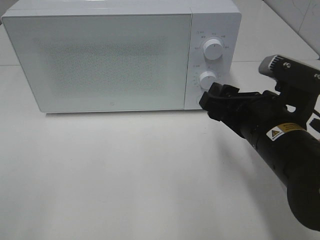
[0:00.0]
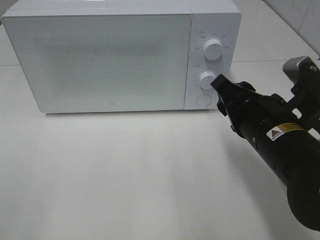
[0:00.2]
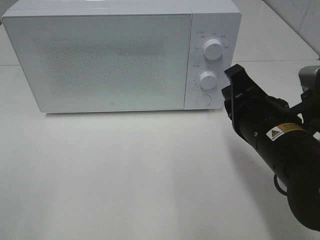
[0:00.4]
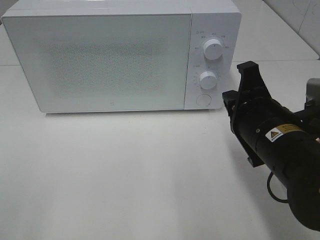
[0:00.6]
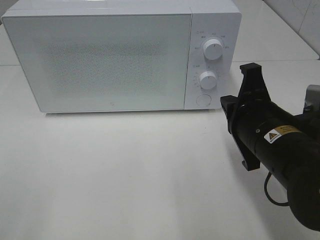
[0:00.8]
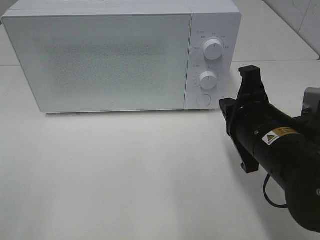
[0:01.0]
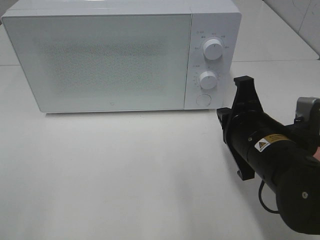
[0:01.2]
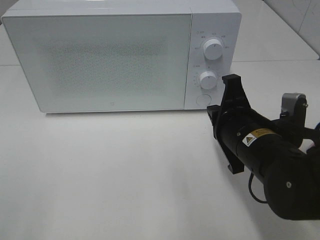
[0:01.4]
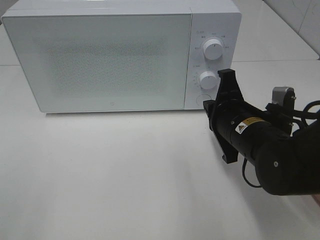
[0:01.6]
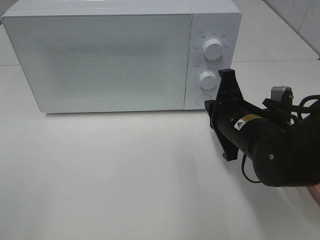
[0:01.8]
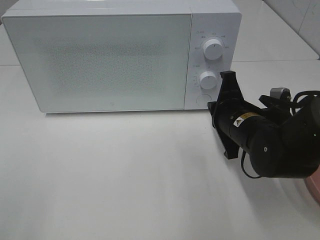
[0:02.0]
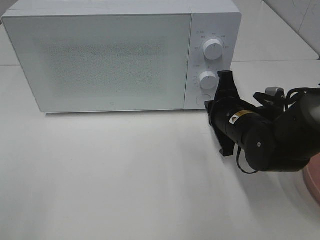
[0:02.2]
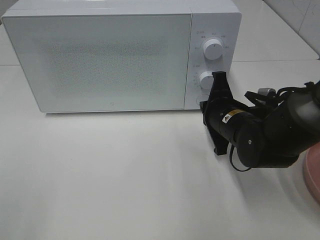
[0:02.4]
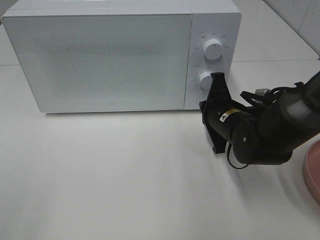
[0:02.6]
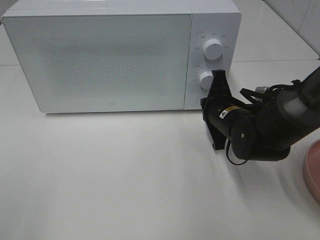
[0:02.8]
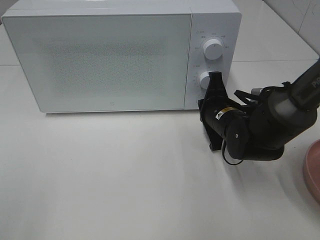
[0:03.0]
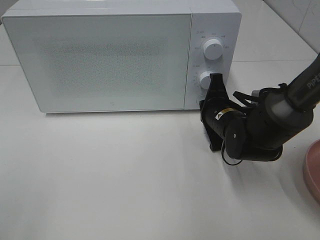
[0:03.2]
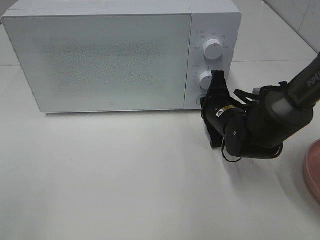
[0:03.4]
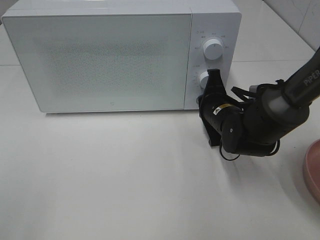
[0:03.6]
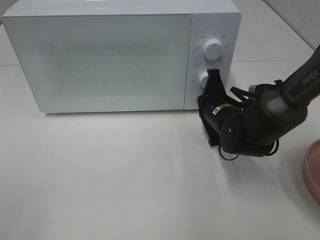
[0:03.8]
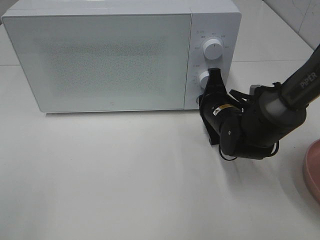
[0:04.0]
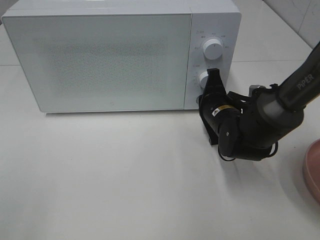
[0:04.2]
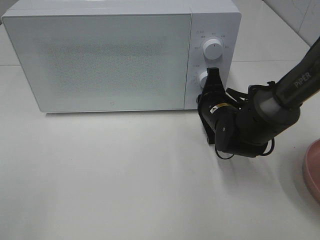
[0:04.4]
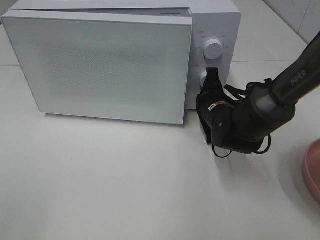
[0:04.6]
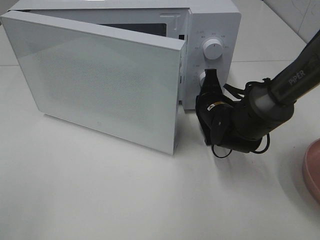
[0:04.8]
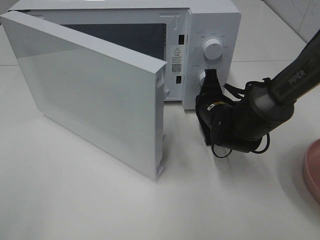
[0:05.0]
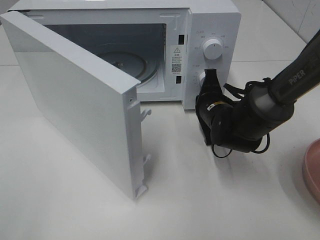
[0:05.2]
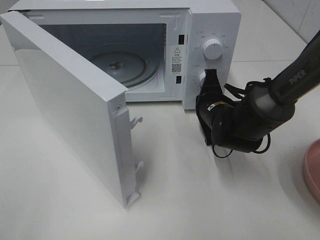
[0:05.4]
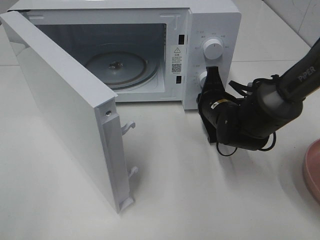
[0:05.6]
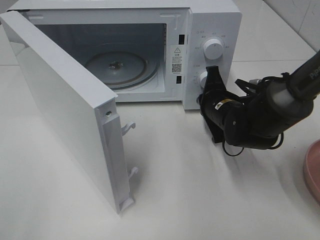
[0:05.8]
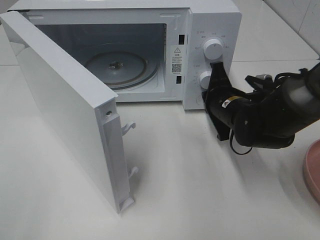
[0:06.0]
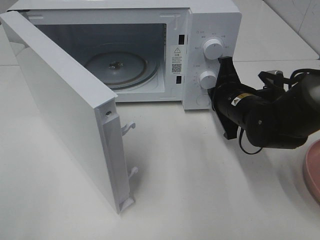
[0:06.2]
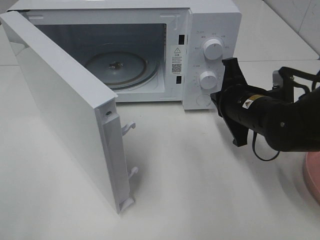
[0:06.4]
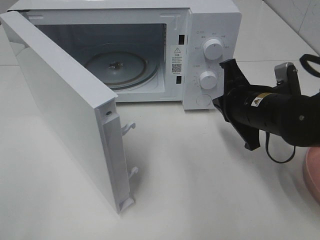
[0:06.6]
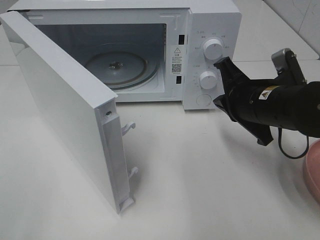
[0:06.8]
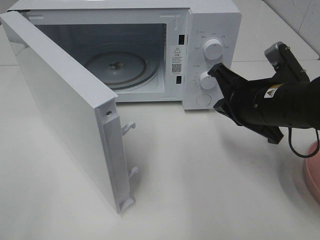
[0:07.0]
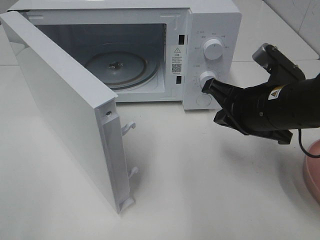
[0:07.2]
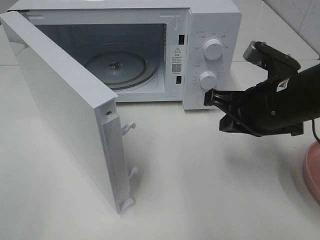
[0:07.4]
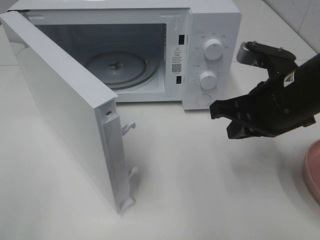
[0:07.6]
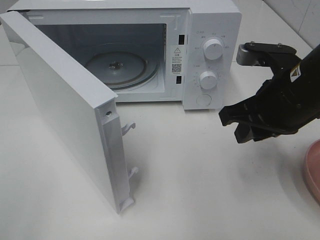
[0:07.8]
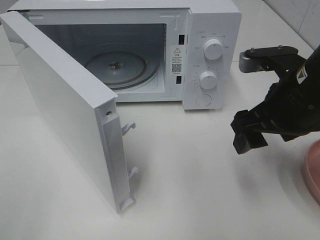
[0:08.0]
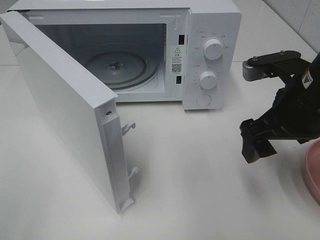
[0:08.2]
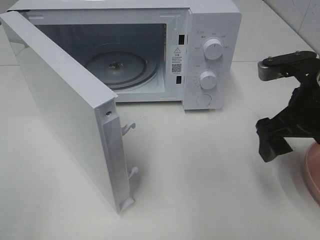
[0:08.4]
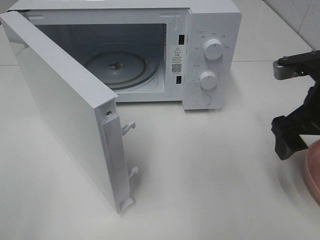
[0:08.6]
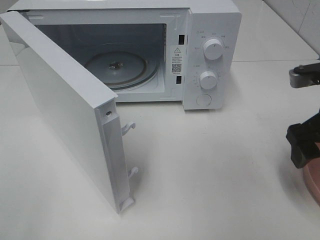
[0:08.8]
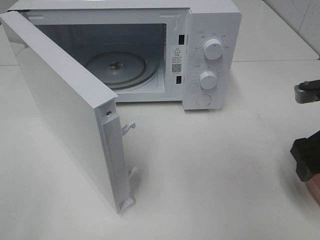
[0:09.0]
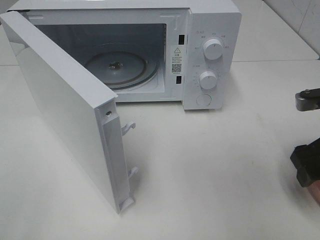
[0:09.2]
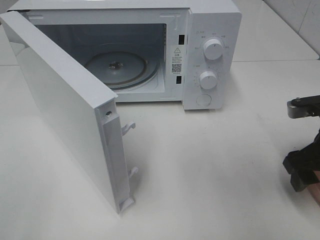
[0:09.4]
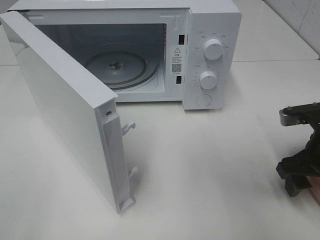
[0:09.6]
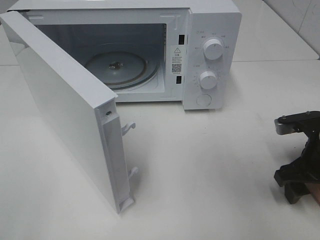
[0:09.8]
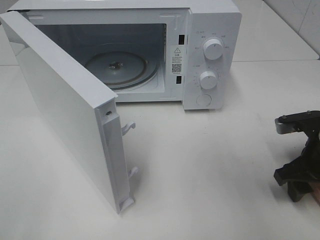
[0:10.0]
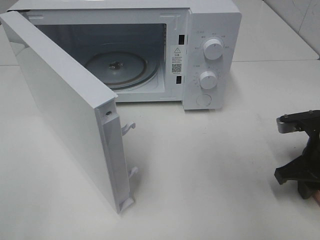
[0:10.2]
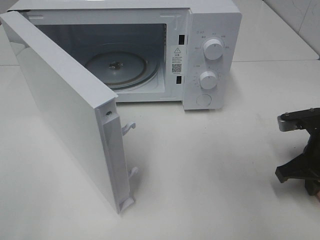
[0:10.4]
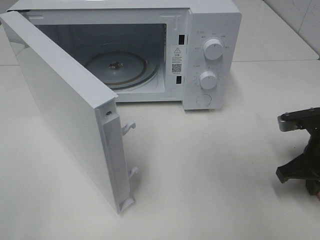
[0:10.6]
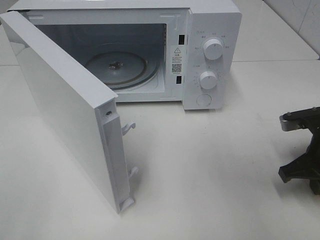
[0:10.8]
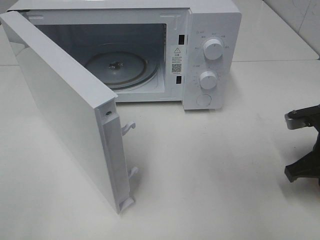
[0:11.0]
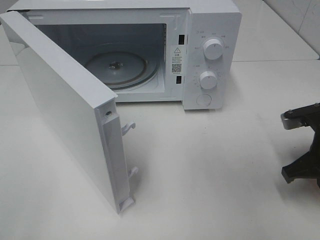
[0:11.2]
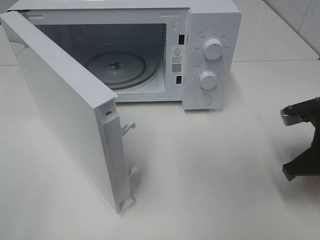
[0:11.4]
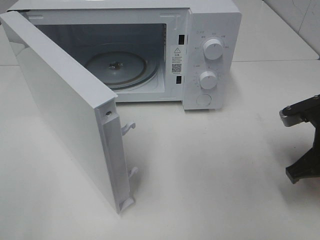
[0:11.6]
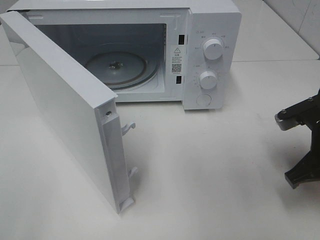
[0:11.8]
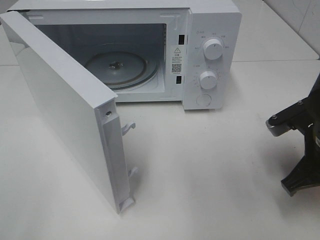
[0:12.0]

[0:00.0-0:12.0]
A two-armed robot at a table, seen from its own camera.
Task of the whole recording: Heat the burger.
Step, 0:00.0 to 0:06.0: Right hand: press the switch.
Step, 0:06.2 to 0:10.4: Right hand: grab the plate with the hamburger.
0:00.0 to 0:01.6: The right gripper ends up some 5 cm from where it was, and closes up.
0:01.6 to 0:03.0: The right gripper moves forward and downward, approximately 10 cm.
0:03.0 to 0:04.4: The grippers make only small movements.
0:06.0 to 0:07.6: The right gripper goes about 15 cm upward and backward.
0:07.6 to 0:09.0: The right gripper goes roughly 10 cm to the right, and opens up.
0:09.0 to 0:10.4: The right gripper travels downward by roughly 5 cm, and closes its fingers.
0:10.4 to 0:12.0: The right gripper ends up about 5 cm from where it was.

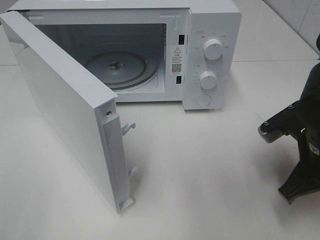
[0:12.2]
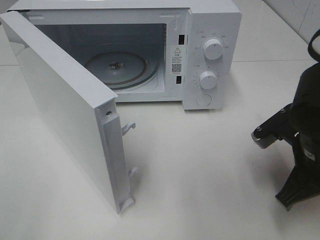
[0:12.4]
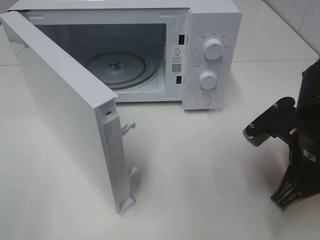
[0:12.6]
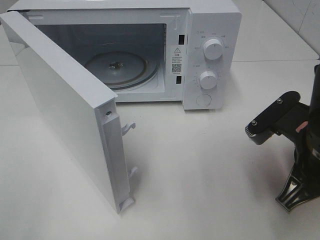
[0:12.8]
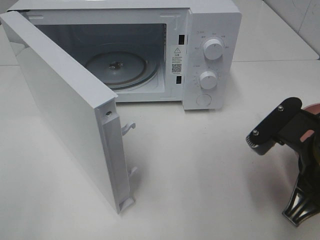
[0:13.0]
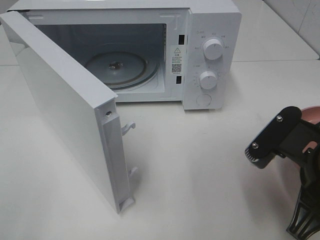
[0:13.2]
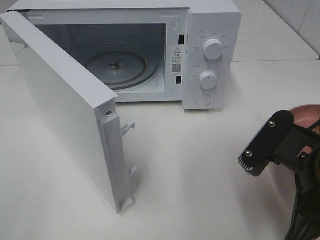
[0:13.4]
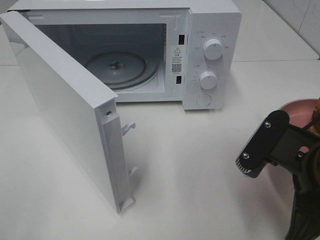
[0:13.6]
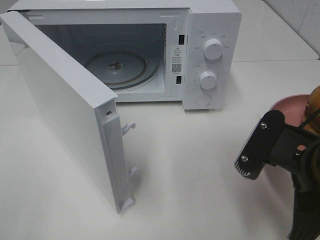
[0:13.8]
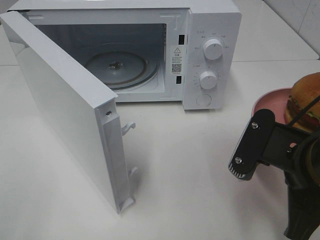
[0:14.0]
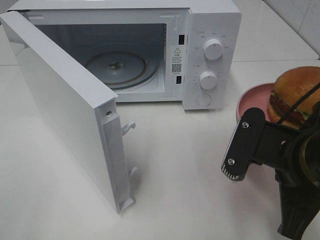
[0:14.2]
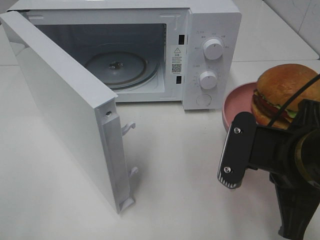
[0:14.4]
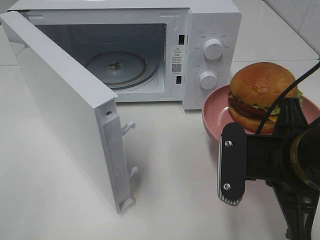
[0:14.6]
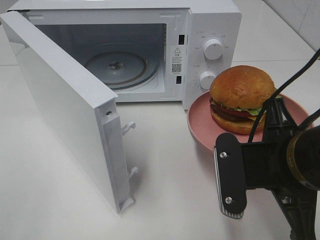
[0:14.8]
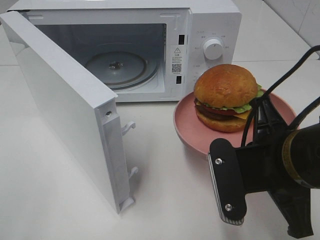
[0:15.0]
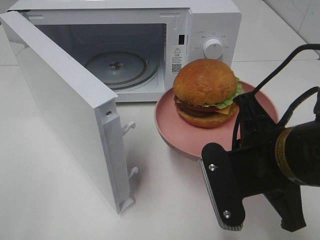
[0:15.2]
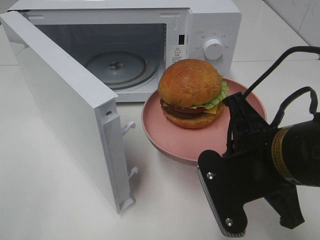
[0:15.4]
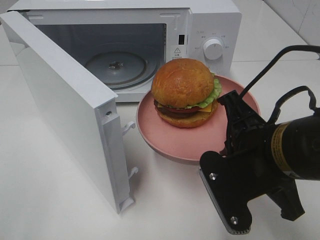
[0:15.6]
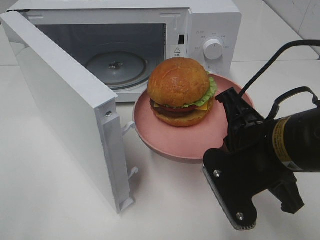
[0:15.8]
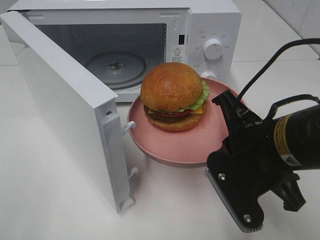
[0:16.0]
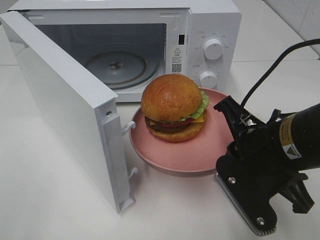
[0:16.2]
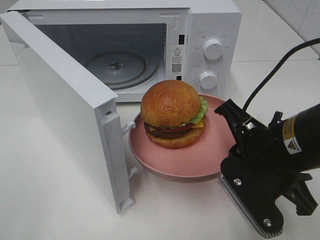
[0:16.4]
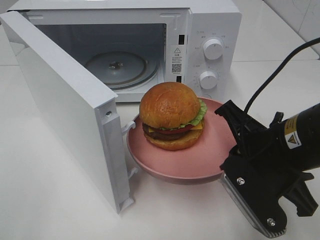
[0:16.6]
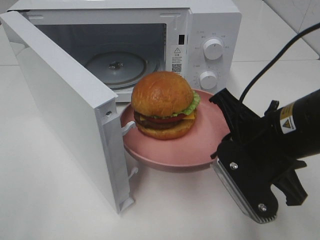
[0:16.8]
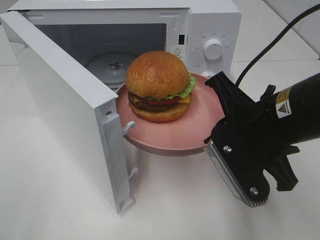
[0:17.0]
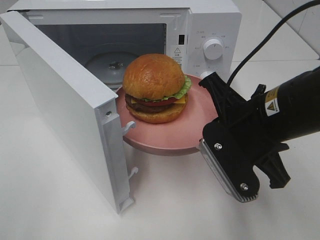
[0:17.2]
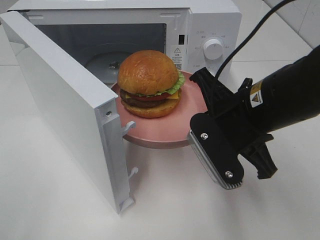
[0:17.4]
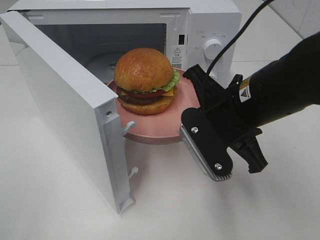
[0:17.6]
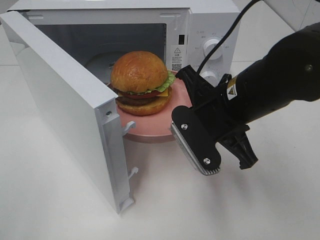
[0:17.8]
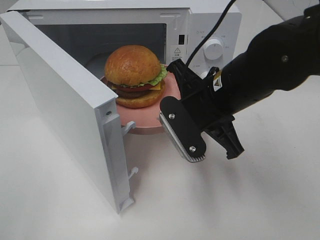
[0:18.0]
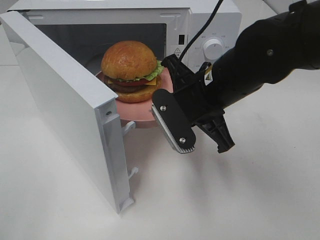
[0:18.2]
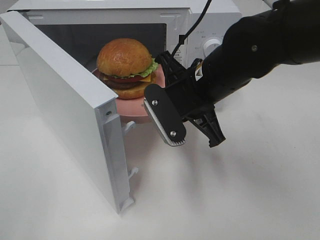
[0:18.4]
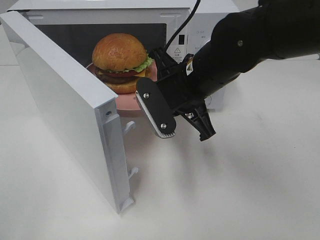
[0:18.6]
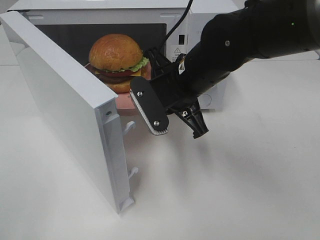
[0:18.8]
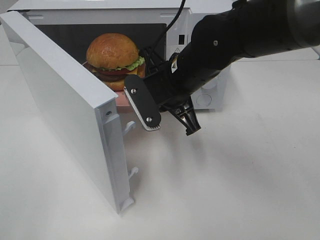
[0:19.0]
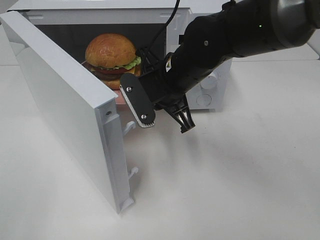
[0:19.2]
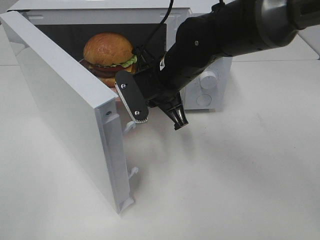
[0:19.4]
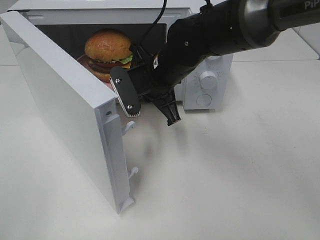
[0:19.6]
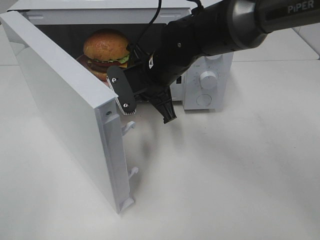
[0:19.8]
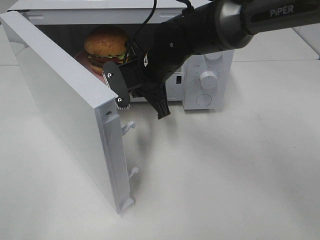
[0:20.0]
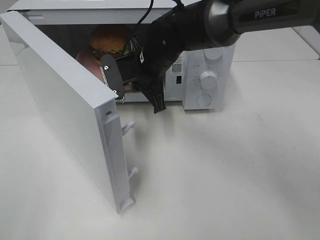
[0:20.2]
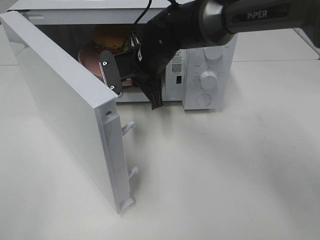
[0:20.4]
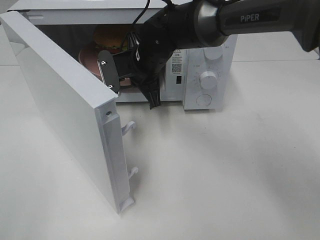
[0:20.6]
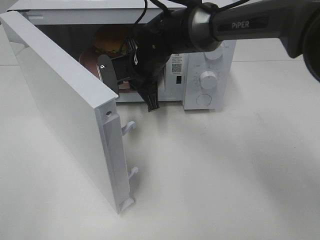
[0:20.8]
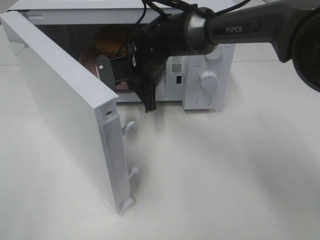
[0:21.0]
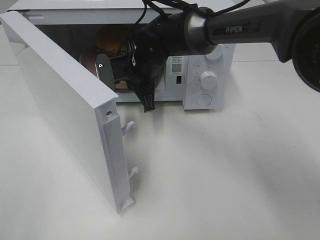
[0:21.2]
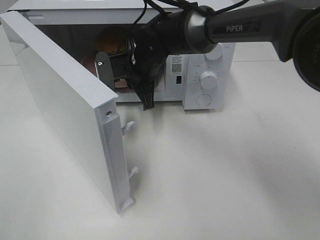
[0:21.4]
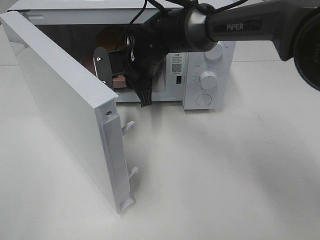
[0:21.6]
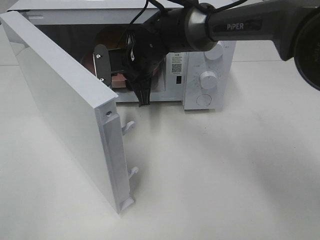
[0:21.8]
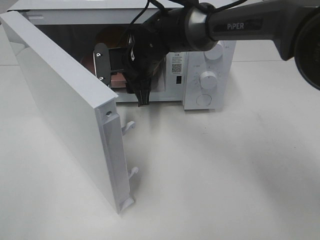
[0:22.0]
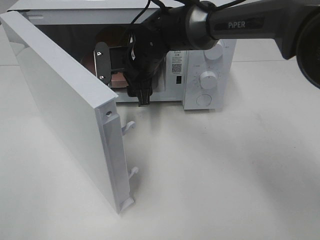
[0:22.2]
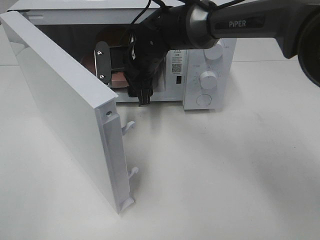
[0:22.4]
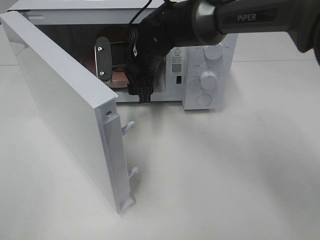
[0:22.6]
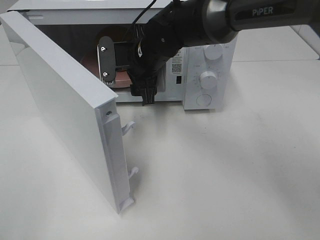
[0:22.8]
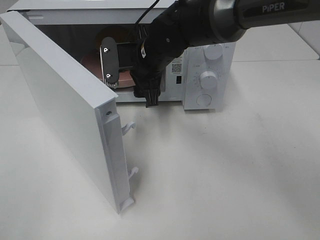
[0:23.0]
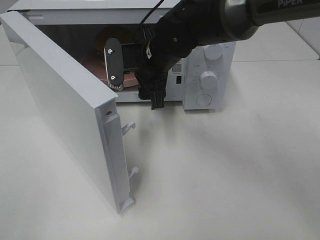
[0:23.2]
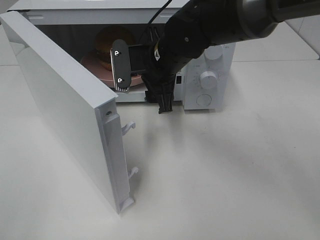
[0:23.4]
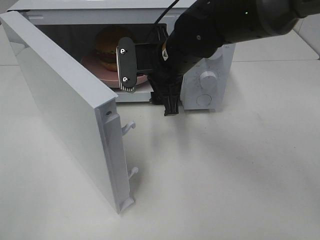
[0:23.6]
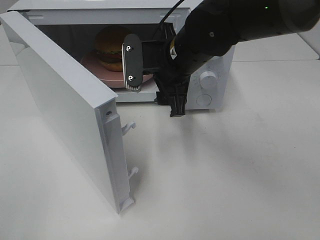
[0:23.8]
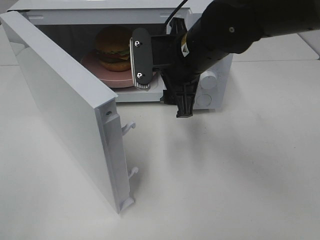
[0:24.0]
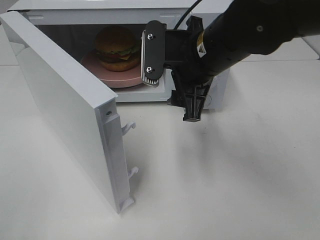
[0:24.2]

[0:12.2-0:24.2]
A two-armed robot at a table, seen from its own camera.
Task of the whole recording: Heat the burger.
Step, 0:12.2 to 0:21.0: Right hand: place the plate in the microwave.
0:12.2 to 0:13.8: The right gripper shifts some 5 cm backward.
0:16.6 to 0:18.2: The right gripper shifts some 10 cm forward and to the left.
0:18.2 to 0:19.8: The right gripper travels forward and to the left by roughly 10 cm.
0:19.8 to 0:21.2: The right gripper is displaced forward by roughly 5 cm.
0:21.2 to 0:22.6: The right gripper opens up.
0:22.6 to 0:24.2: The right gripper shifts approximately 15 cm backward, to the right and upward.
